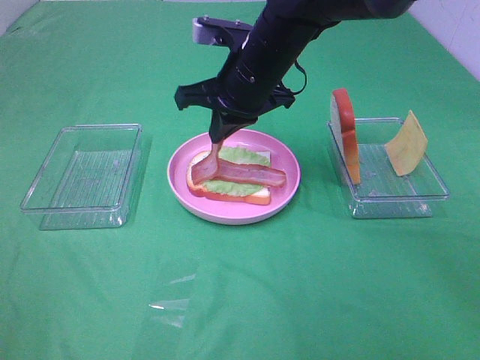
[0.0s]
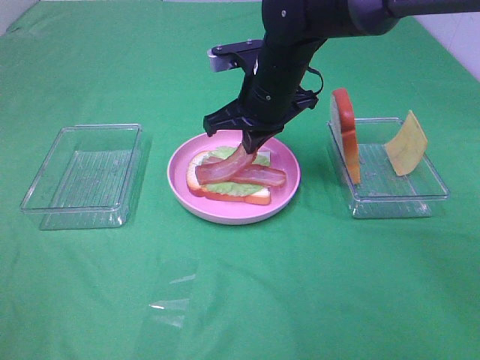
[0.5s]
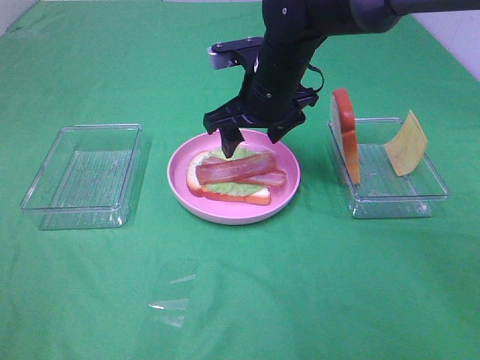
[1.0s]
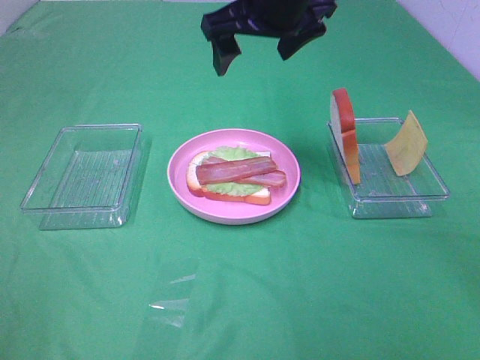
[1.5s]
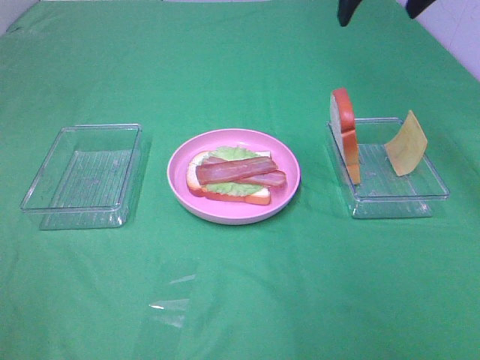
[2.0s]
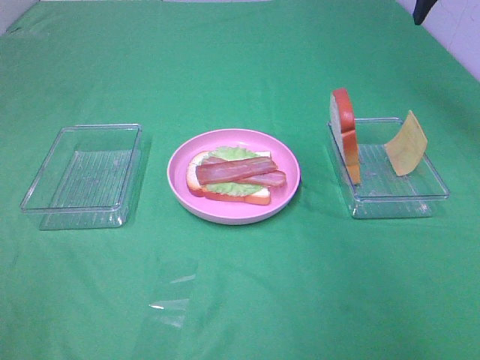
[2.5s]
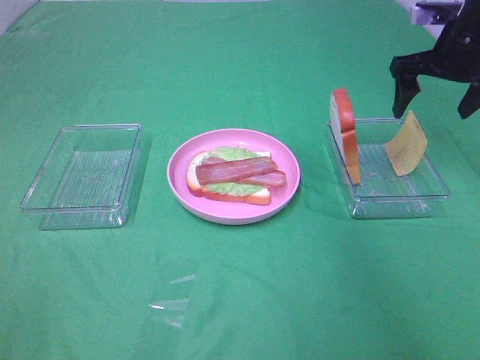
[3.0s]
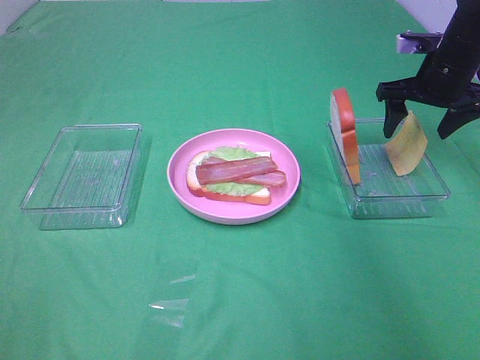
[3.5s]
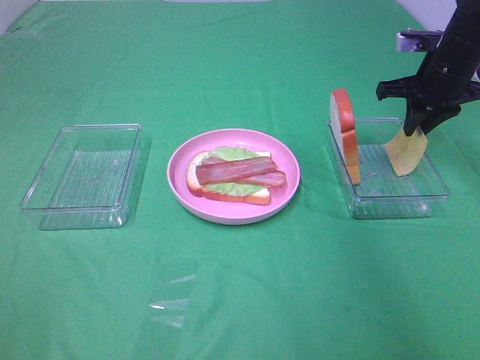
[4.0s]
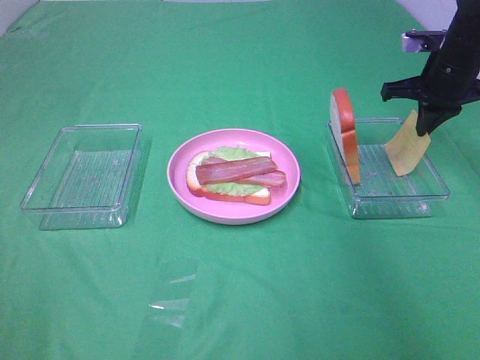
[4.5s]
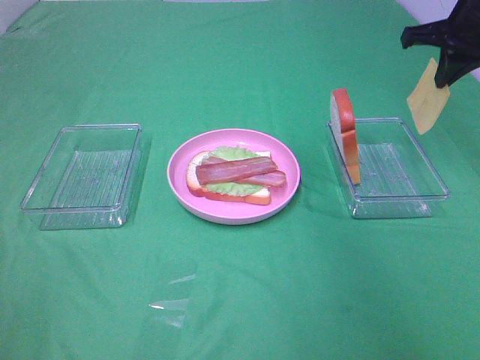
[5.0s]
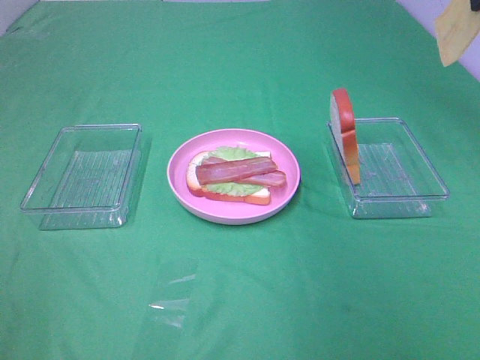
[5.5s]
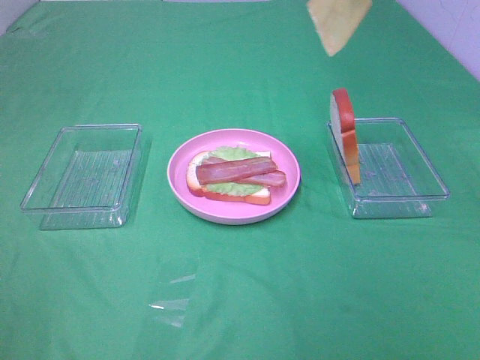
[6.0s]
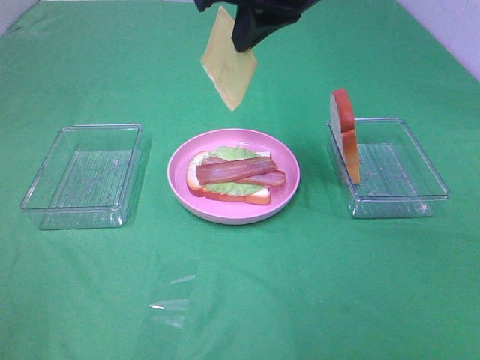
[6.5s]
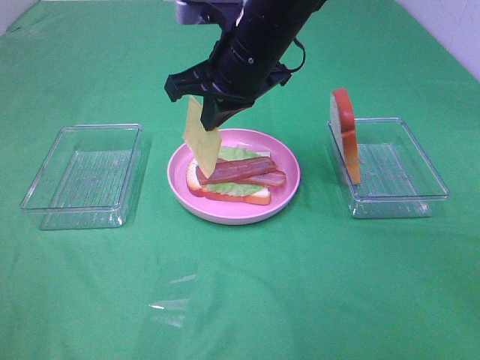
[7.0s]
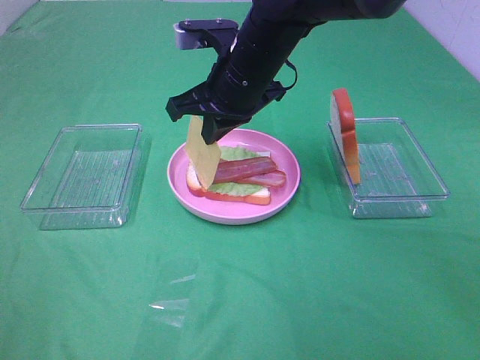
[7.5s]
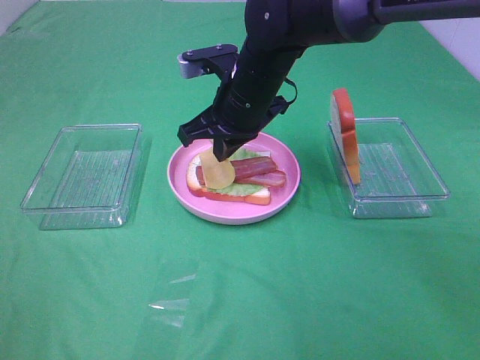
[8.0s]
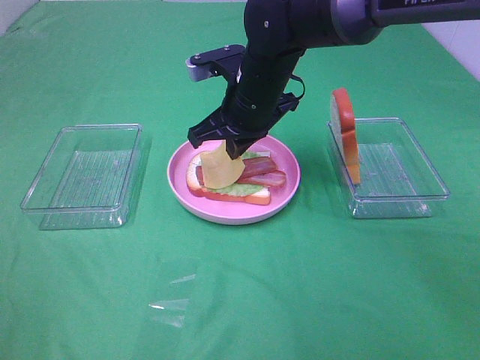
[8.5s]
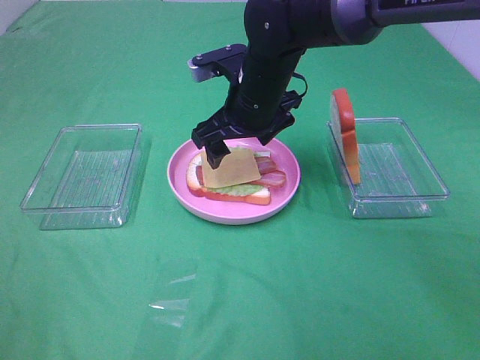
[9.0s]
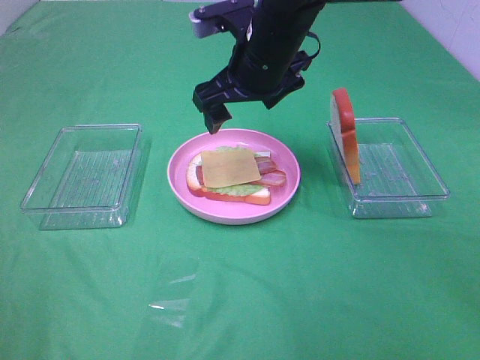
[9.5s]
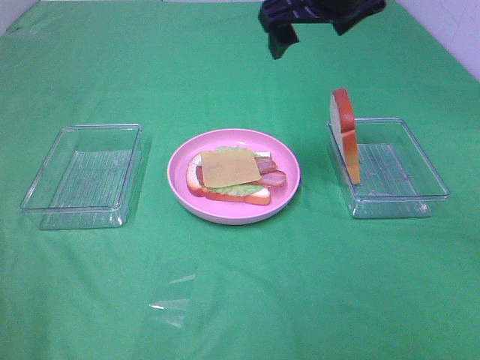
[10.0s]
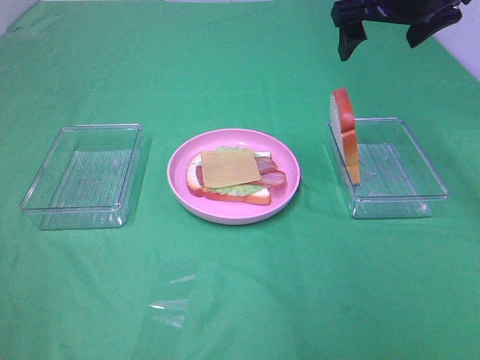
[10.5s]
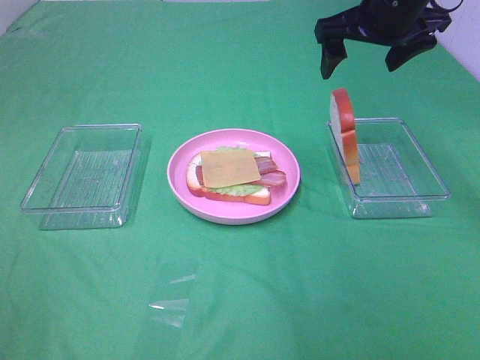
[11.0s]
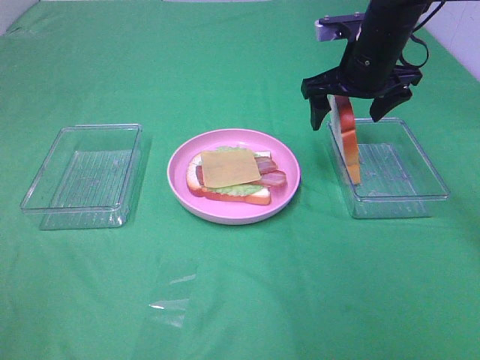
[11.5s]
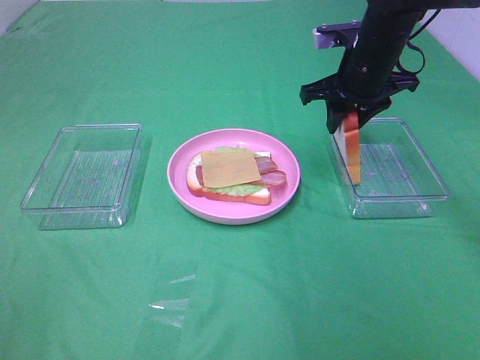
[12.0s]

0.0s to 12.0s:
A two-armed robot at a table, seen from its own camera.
Task of the whole recording: Make sandwiches.
Step, 1.5s to 4.5s: Right hand:grab the cheese slice.
Step, 5.0s to 9.0s: Right hand:place the cheese slice on top of the bacon.
0.0s to 2.0s: The right gripper shifts about 25 cm to the right and upward, and opens up.
2.0s to 4.0s: The right gripper travels downward and to the right by about 20 cm, and closes its fingers.
4.0s to 6.0s: The right gripper travels upward, to the left and backward by approximately 25 cm.
6.0s to 8.0s: The right gripper goes approximately 25 cm downward and to the left.
8.0s to 10.0s: The right gripper goes approximately 15 cm upward and to the right, and opens up.
10.0s to 12.0s: The right gripper shifts approximately 15 cm downward and to the right, and closes its fingers.

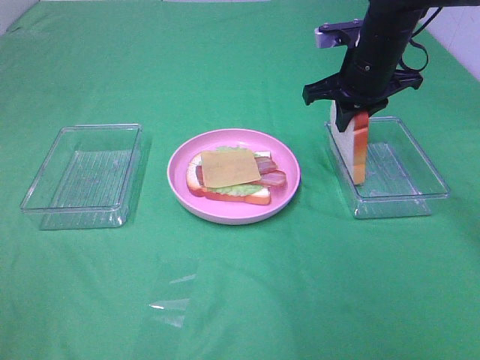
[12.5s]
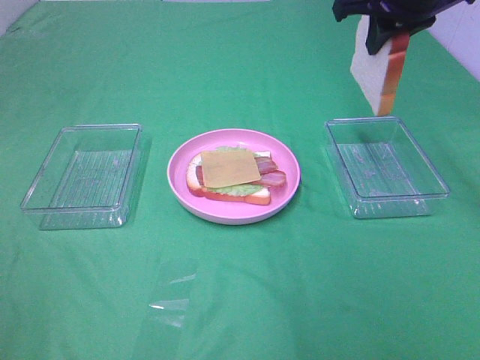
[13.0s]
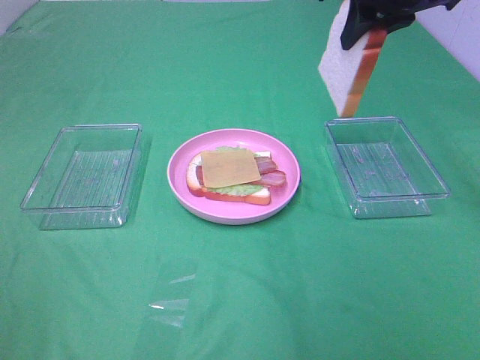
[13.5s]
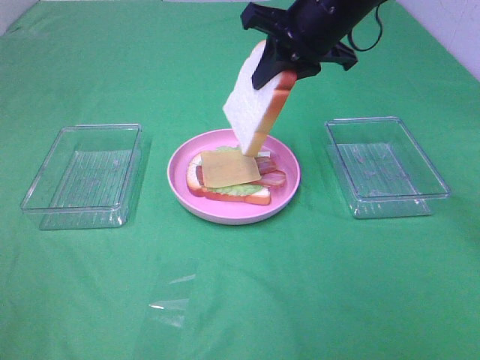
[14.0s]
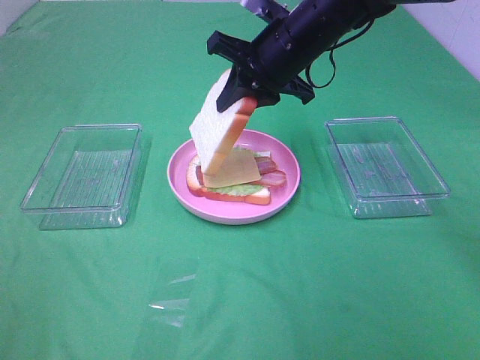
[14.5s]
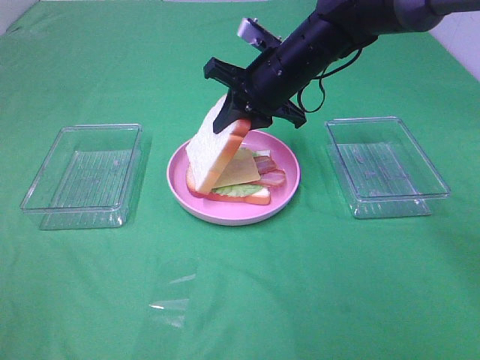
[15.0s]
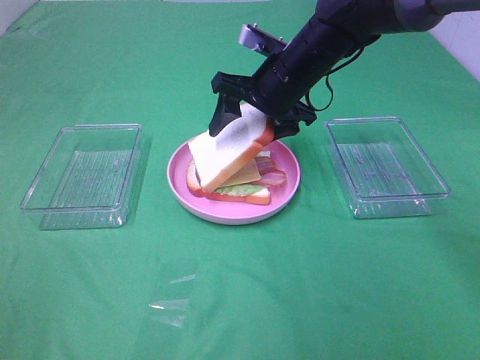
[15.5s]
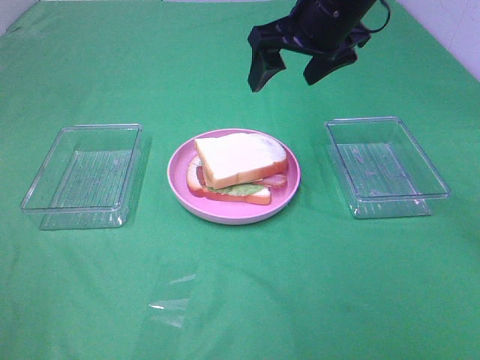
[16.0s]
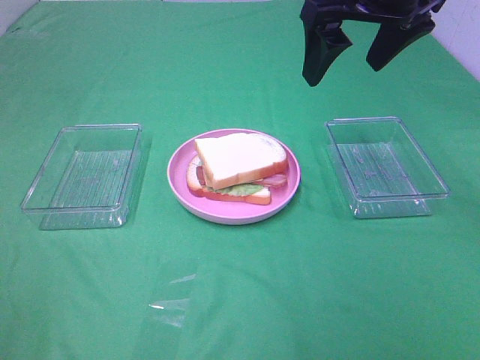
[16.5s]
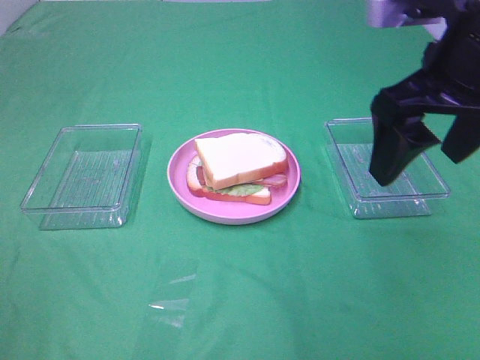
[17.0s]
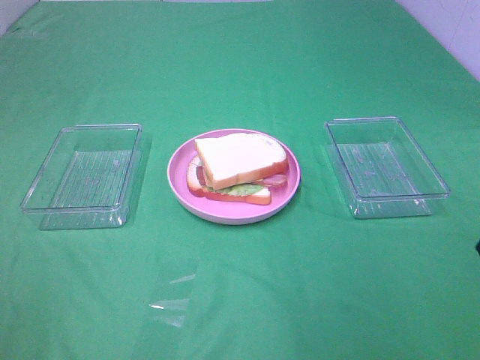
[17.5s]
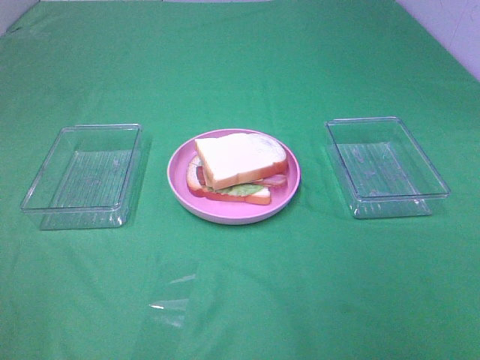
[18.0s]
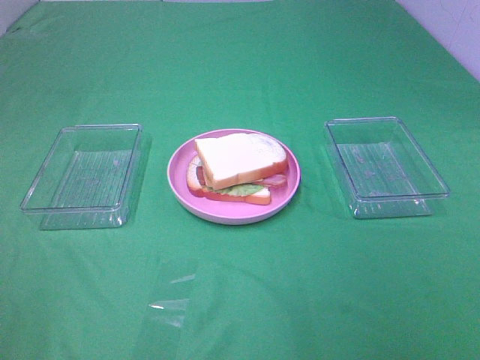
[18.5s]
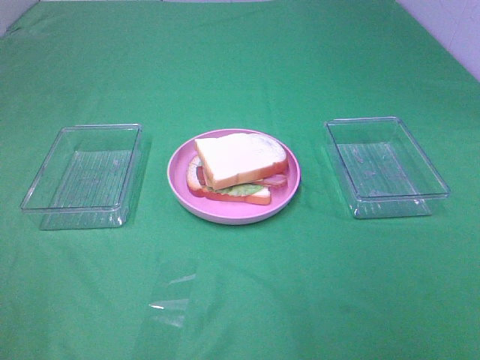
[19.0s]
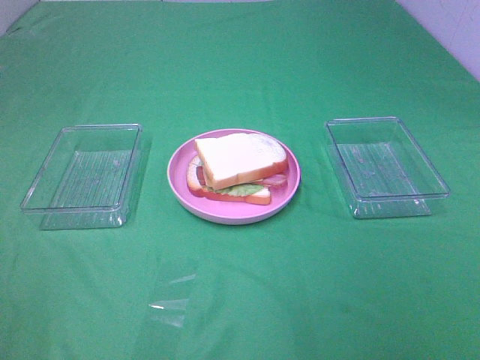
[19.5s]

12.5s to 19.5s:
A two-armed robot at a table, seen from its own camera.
Task of the whole recording: Make sandwiches.
Step, 13.0s to 15.5s: Right hand:place the bread slice on the cheese slice.
12.5s to 14.5s: The right gripper shifts about 10 cm to the left, and reaches roughly 10 cm upward, then returns.
14.5s to 16.0s: The right gripper moves upward, roughly 5 cm, and opens its fingers.
16.0s to 17.5s: The right gripper heads backward and to the right, covering some 30 cm.

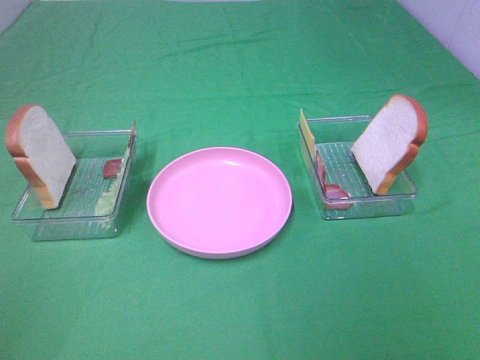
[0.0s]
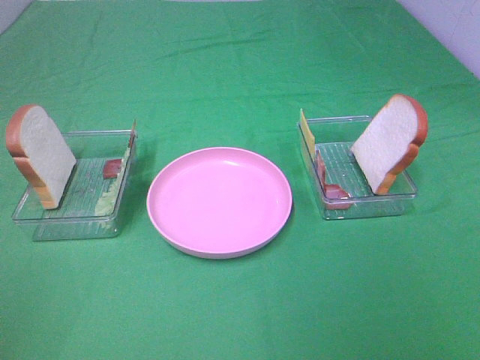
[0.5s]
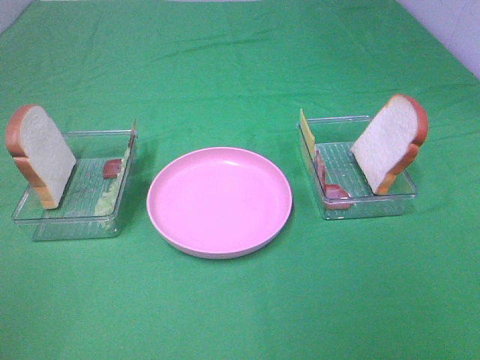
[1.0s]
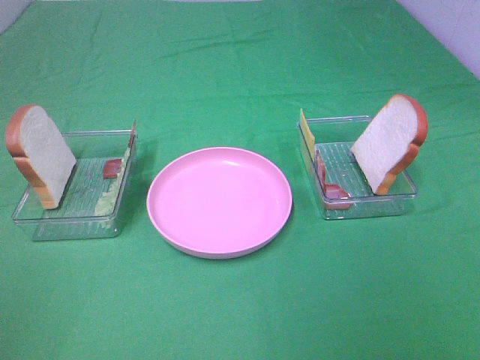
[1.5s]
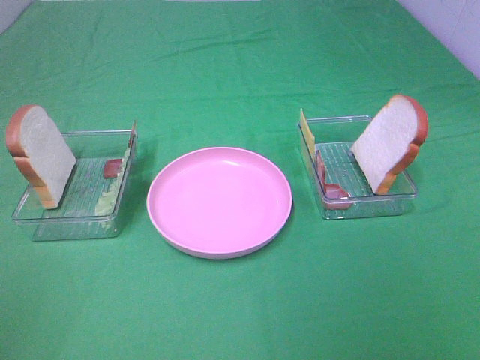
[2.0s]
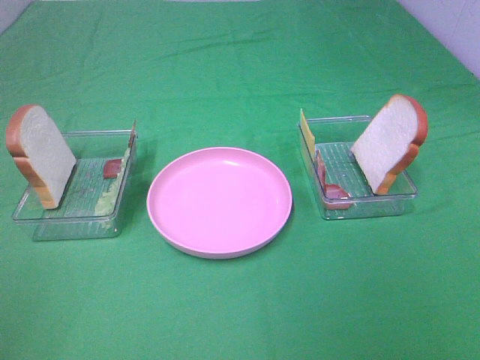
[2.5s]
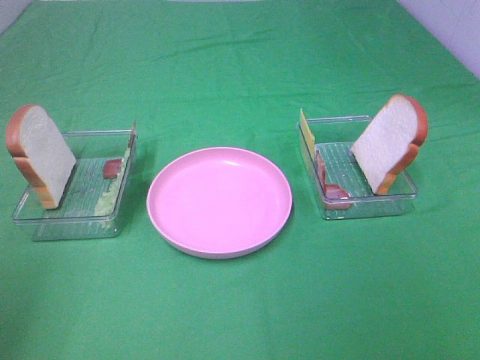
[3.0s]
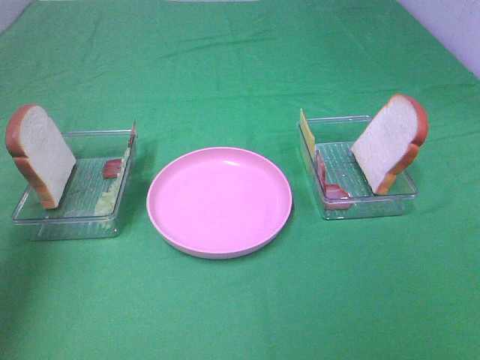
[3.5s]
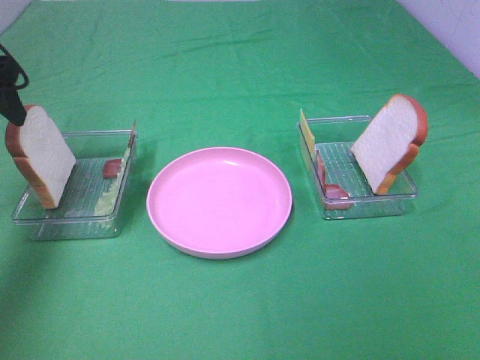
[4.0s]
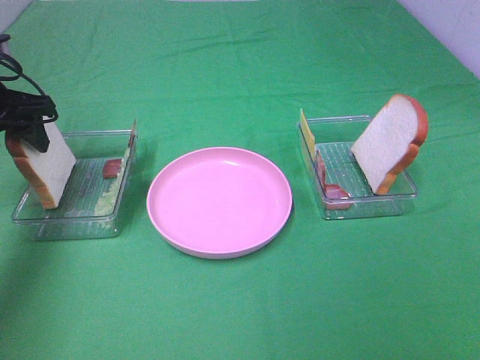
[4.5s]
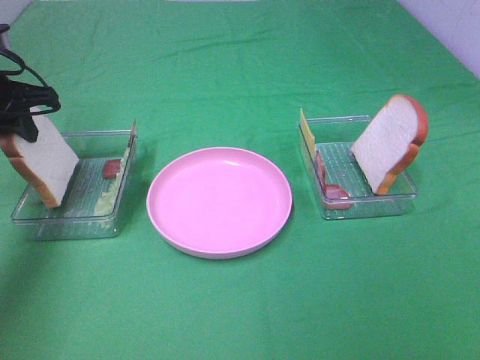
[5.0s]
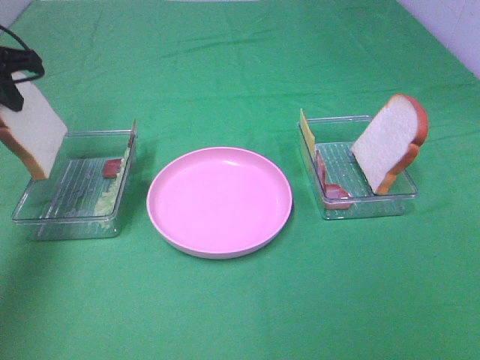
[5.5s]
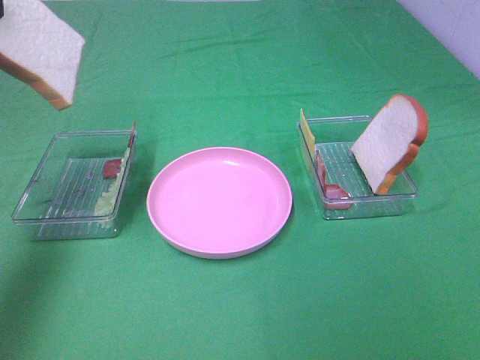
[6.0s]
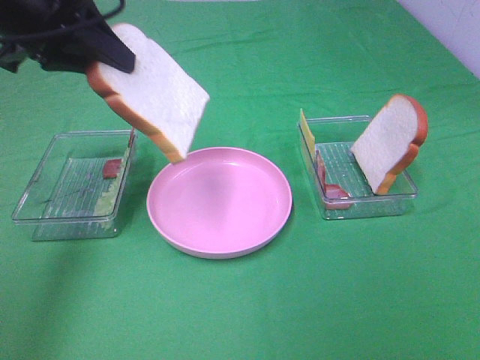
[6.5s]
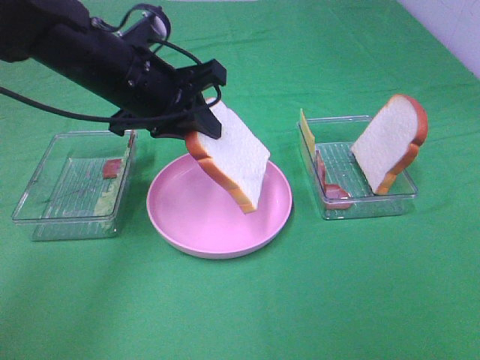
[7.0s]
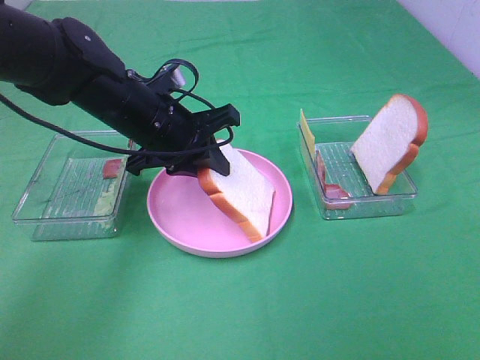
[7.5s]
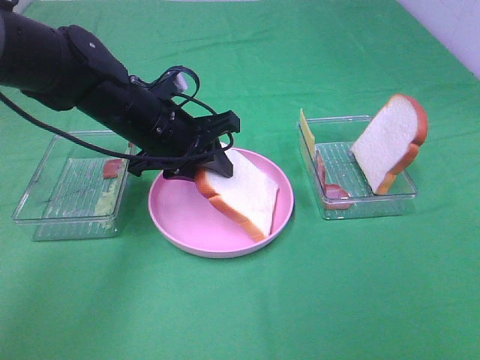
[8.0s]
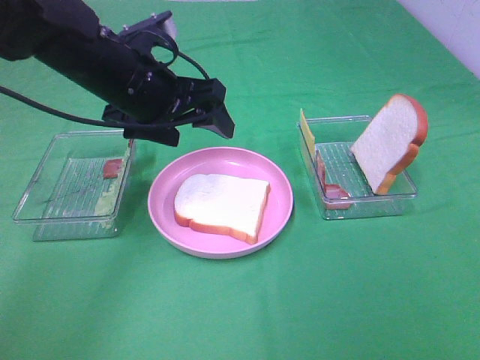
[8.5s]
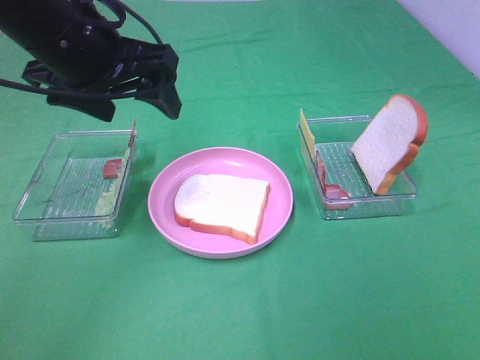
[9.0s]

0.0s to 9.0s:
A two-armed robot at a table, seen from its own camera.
Task of the whole recording: Make sandwiches.
Step, 0.0s to 5.0s: Left hand:grab the bread slice.
Step, 5.5s to 8.5s: Left hand:place the bread slice on the plate.
0.0s to 2.0s: Both grippers stay about where they are.
2.0s to 4.5s: The left gripper moves forward, approximately 40 cm.
4.5s to 7.0s: The left gripper shifts some 20 cm to the right, and closes its fingers.
7.0s to 9.0s: The left gripper moves upward, about 5 cm, and opens up.
